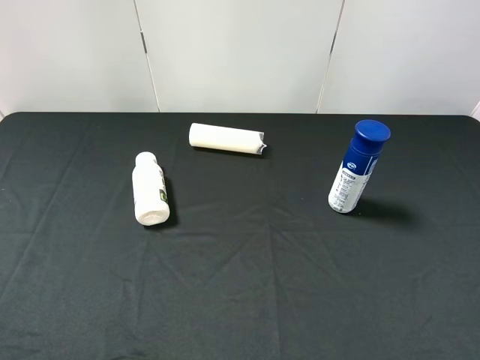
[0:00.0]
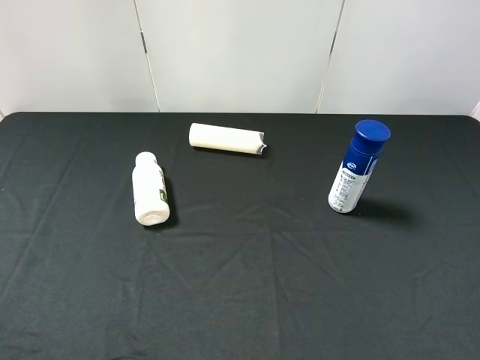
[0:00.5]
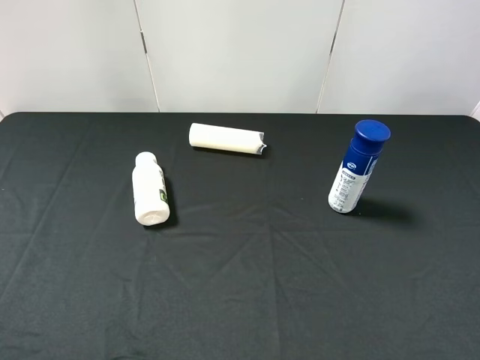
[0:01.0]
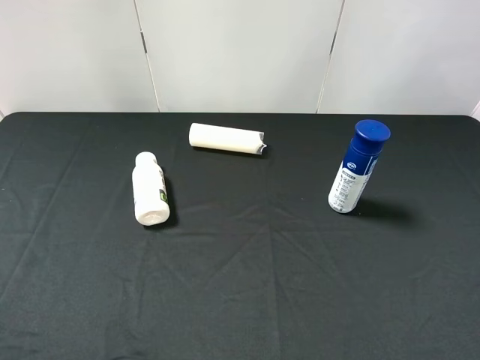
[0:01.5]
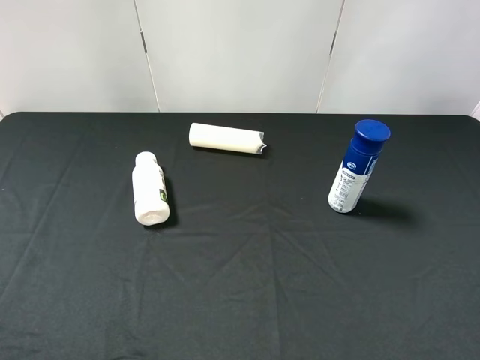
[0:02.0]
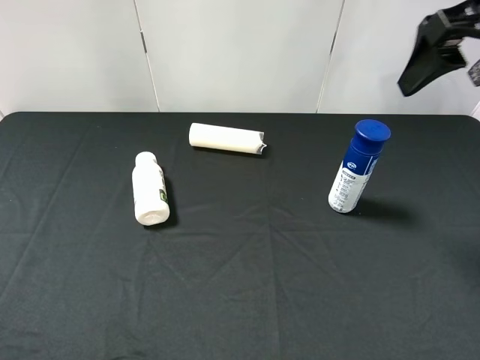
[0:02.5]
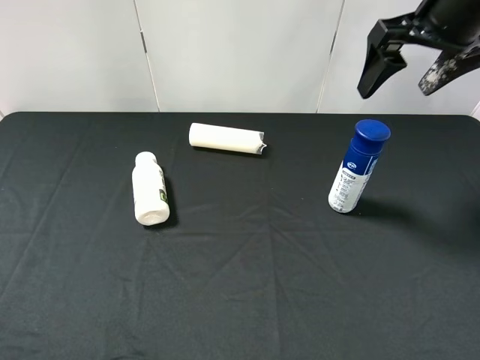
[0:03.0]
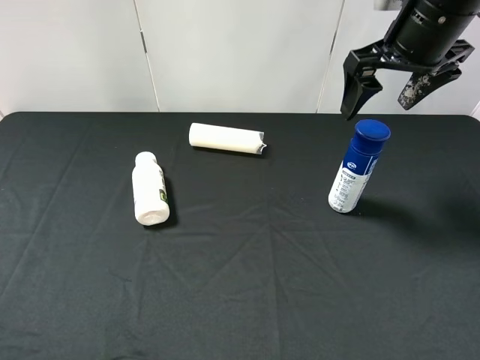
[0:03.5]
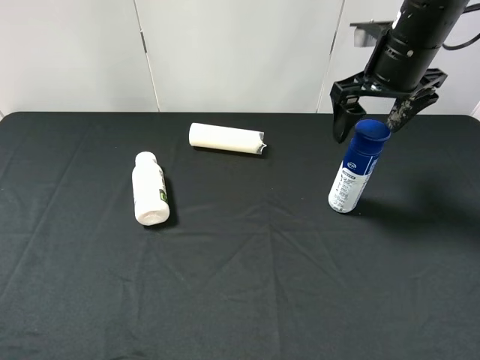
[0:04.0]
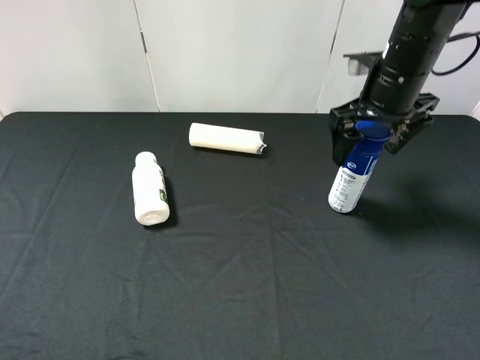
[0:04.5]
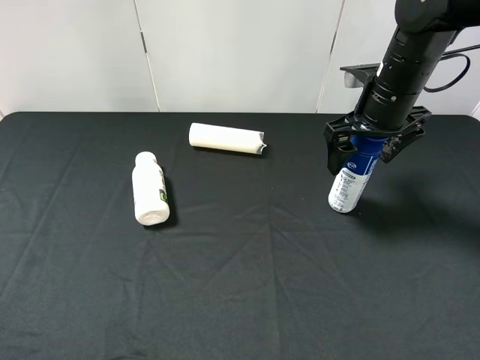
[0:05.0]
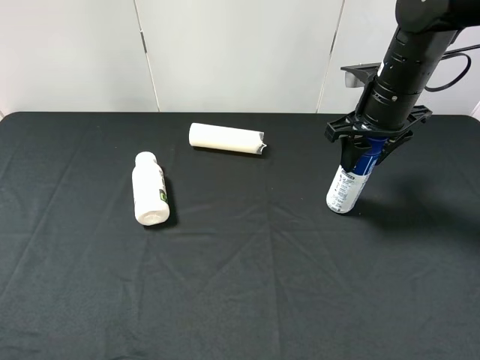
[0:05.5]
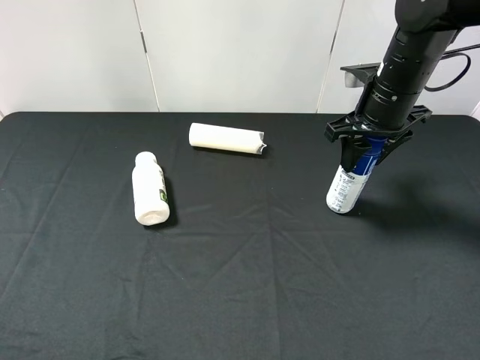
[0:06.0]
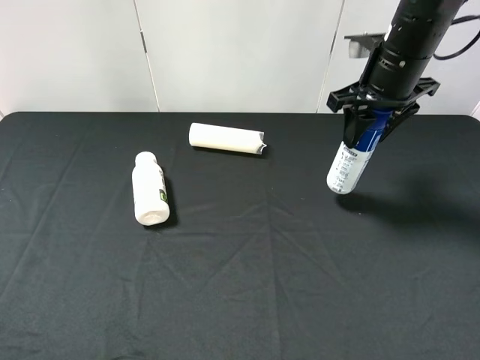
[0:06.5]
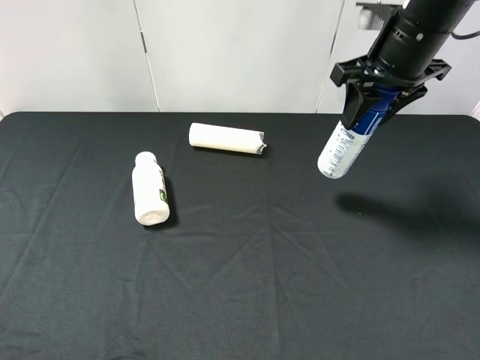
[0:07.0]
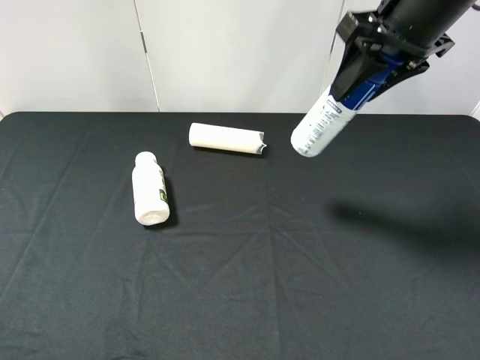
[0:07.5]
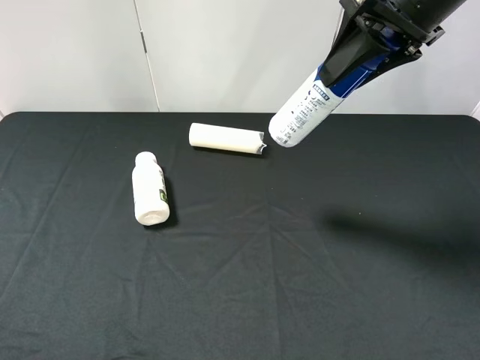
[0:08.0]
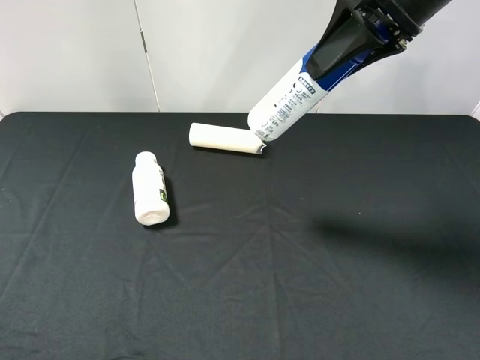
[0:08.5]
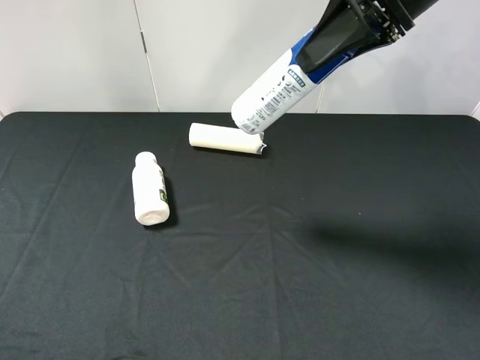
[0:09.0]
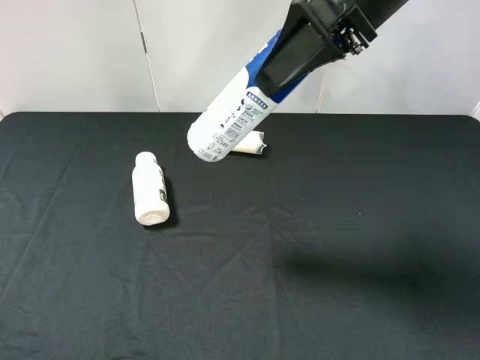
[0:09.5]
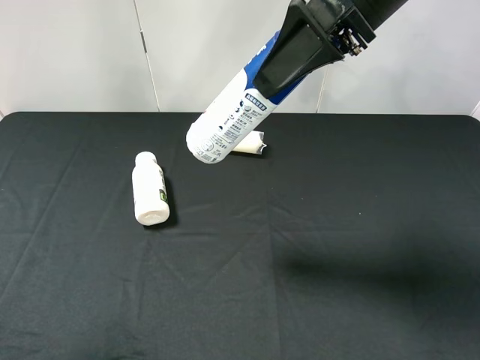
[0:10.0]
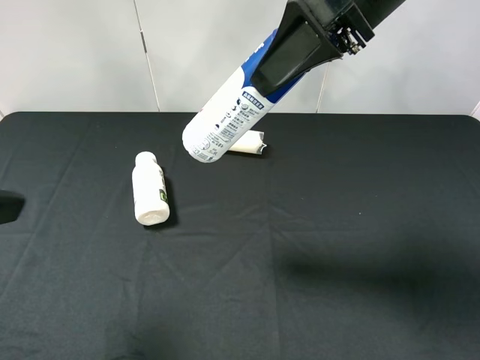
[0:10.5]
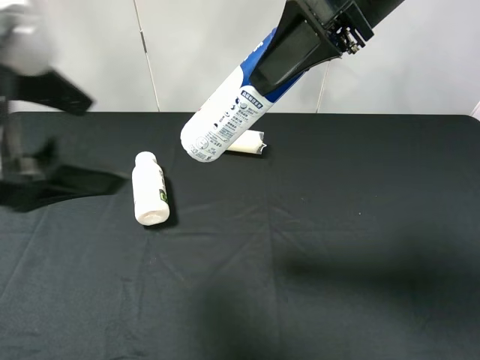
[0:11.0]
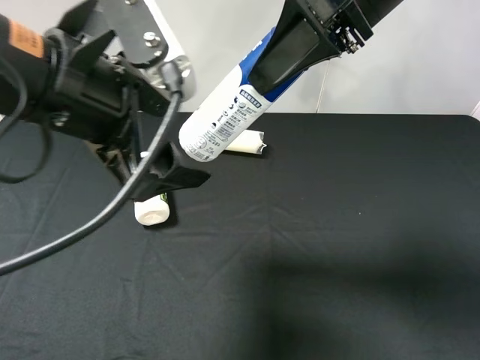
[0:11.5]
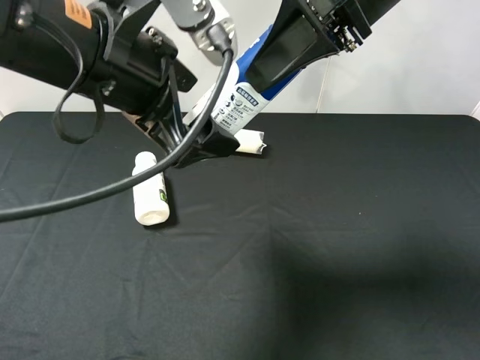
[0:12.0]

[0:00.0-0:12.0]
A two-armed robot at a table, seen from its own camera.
Task of the whole recording: use the right gripper to pick up the item and transfer it from the right gripper to the left gripper.
Step, 0:00.0 to 0:05.5: Use the right gripper to grab the yogurt on the right side of the table.
0:02.0 to 0:04.0: The right gripper travels forward, downward and to the left by approximately 25 cm.
0:04.0 to 0:06.0: The right gripper closes its fingers.
0:06.0 to 0:08.0: The right gripper shifts approximately 15 cm upward.
0:08.0 to 0:10.0: The left gripper is displaced forward by approximately 5 cm. Meanwhile the right gripper moves to the left, about 5 cm.
0:10.0 to 0:12.0: The left gripper moves to the right and forward, roughly 25 cm.

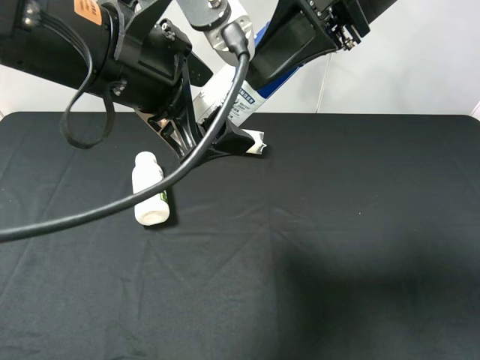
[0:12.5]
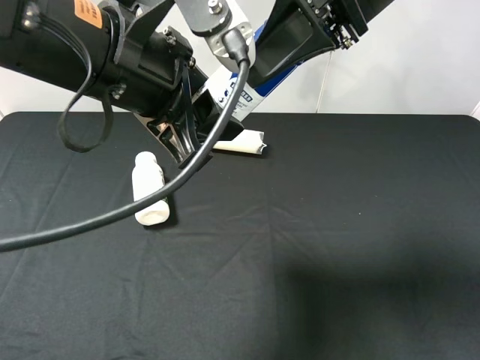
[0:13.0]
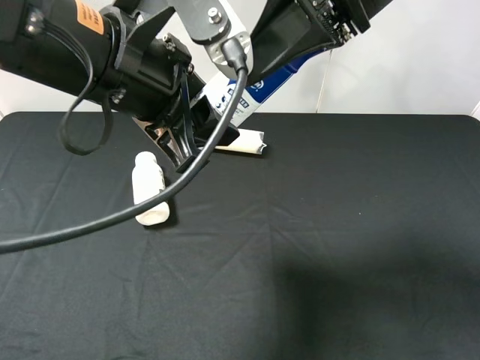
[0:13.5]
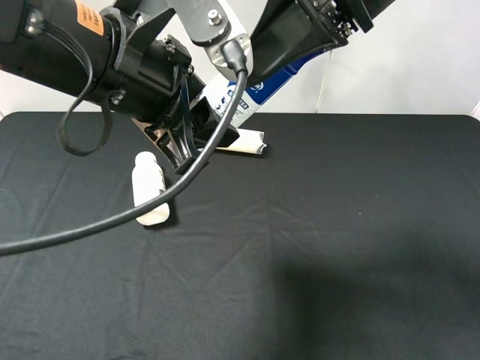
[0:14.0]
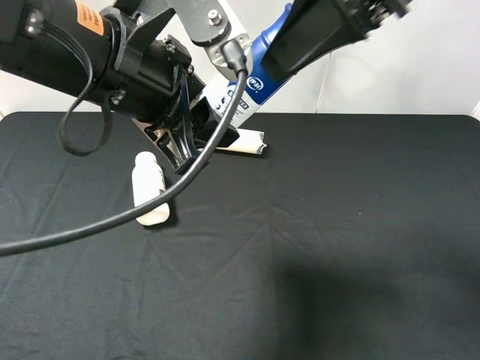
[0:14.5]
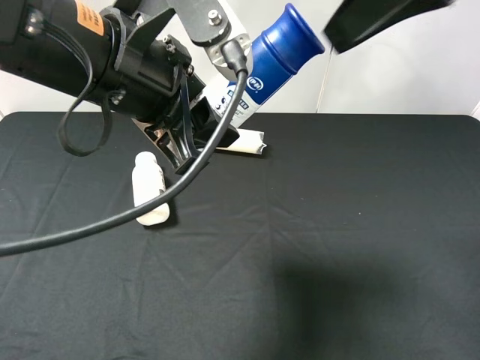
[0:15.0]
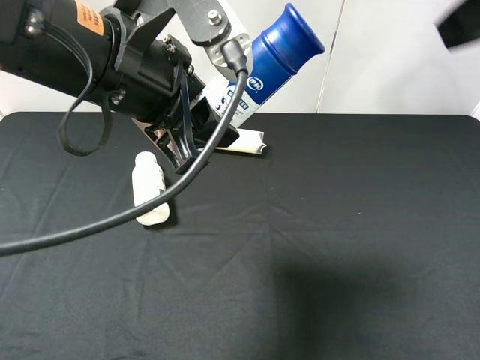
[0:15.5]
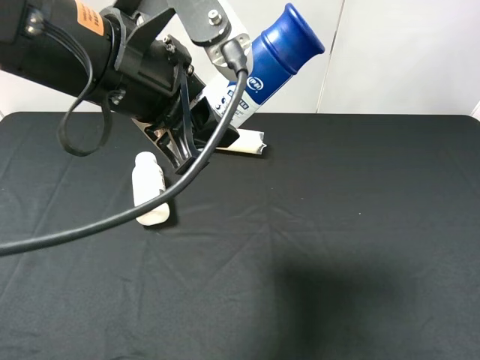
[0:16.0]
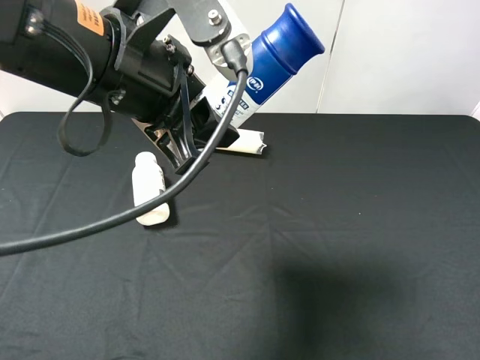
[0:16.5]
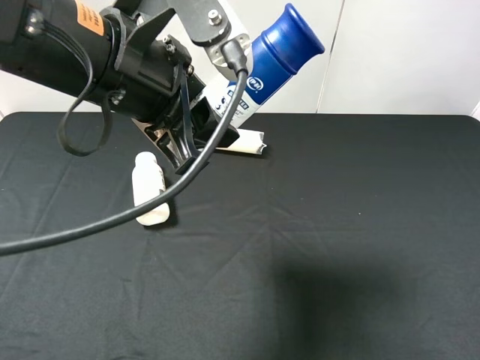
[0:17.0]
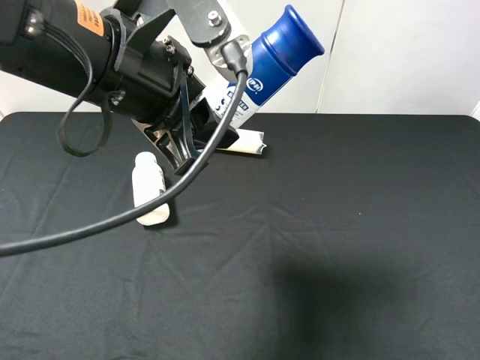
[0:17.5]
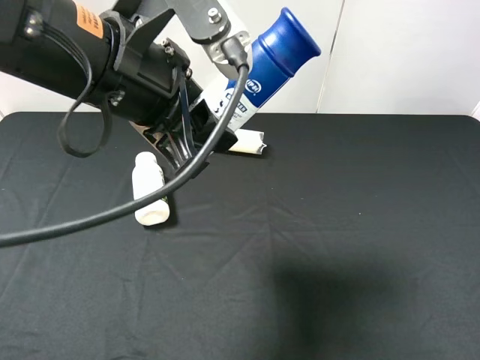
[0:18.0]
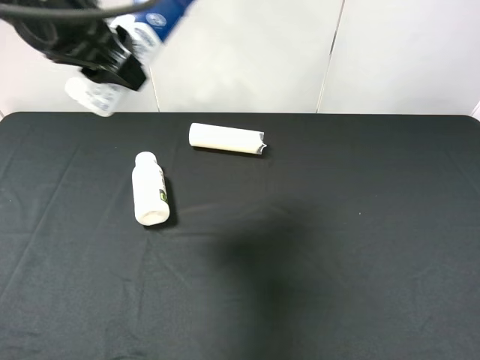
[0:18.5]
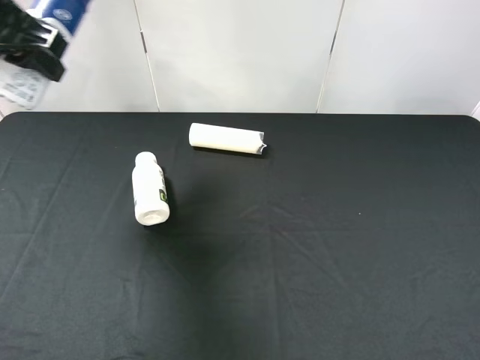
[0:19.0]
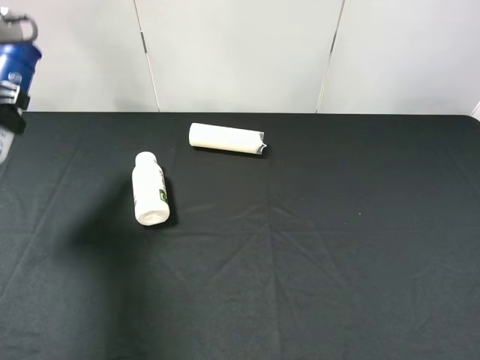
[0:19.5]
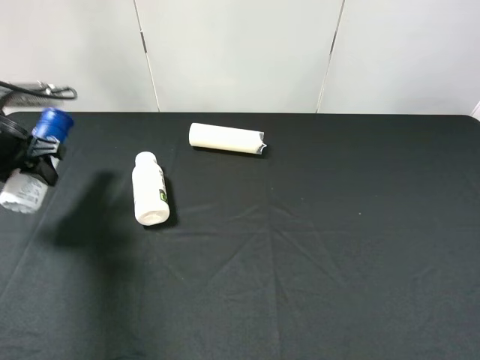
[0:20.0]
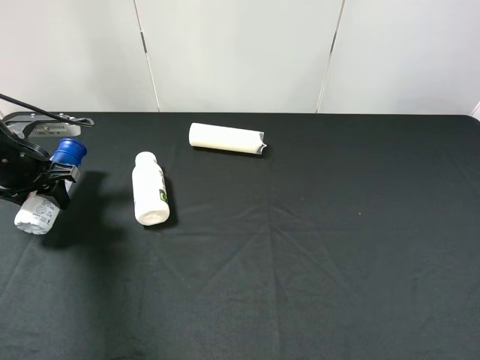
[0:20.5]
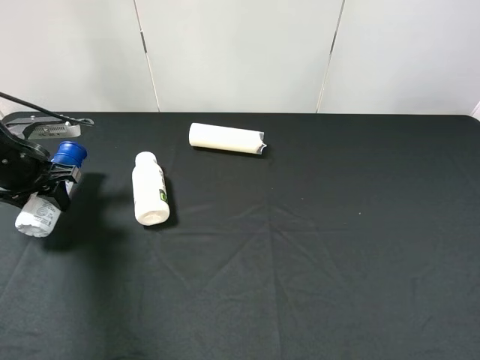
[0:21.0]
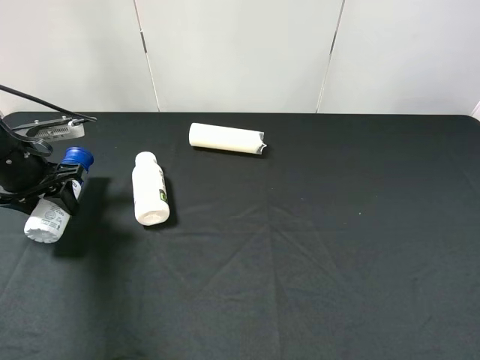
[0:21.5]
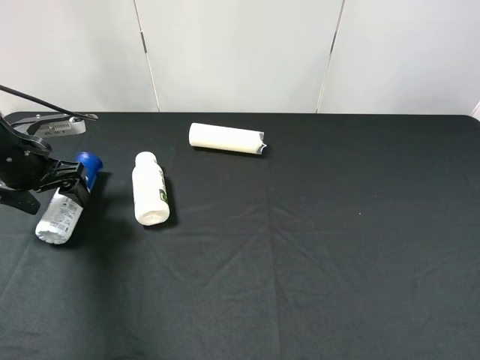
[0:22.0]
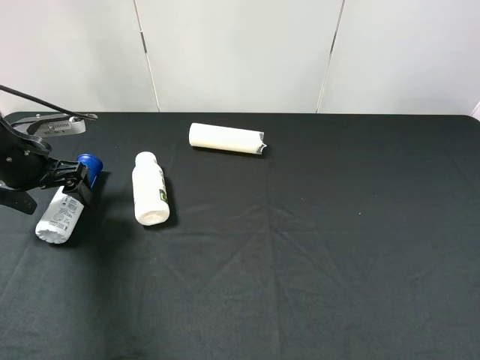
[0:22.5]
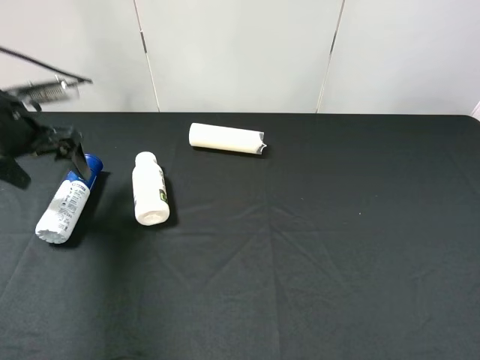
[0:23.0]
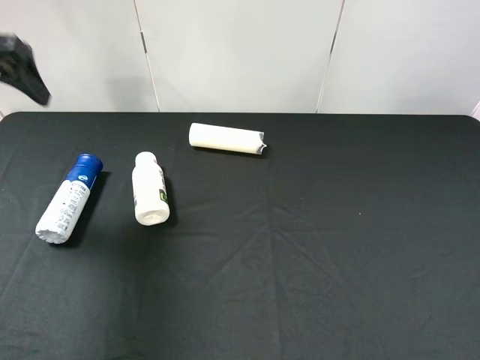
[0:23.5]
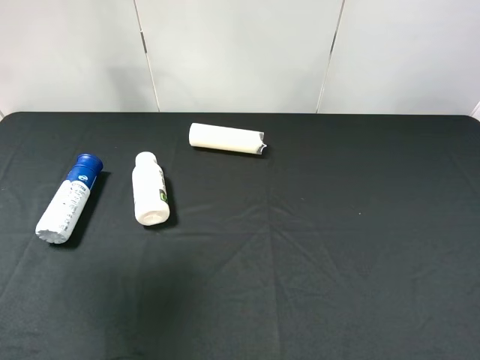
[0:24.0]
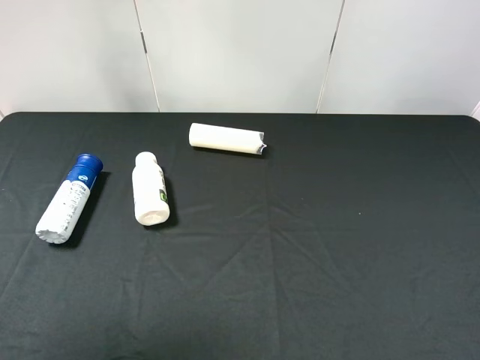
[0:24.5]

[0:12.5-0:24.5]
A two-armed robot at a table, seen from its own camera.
Task of the whole recording: use the right gripper to pick up the item and transfer it from the right gripper to the left gripper.
Step, 0:15.0 to 0:22.5: The left gripper places yogurt on the left side of the table.
0:12.5 to 0:14.5: The left gripper closes up; the right gripper opens.
0:14.5 to 0:16.5: The right gripper travels backward, to the right and downward by some 30 cm.
0:16.5 to 0:18.5: The left gripper is displaced to the left by some 5 cm.
0:18.5 to 0:20.5: The left gripper moves downward and to the left, about 25 cm.
0:20.5 to 0:22.5: The left gripper opens.
0:22.5 to 0:24.5: The left gripper moves upward and backward, about 35 cm.

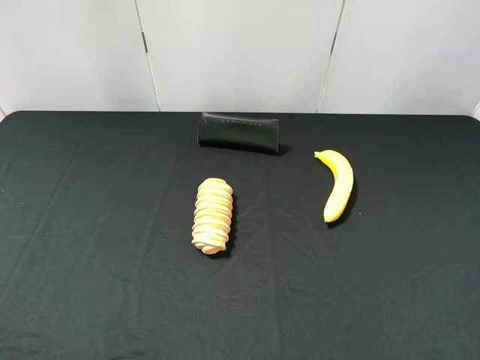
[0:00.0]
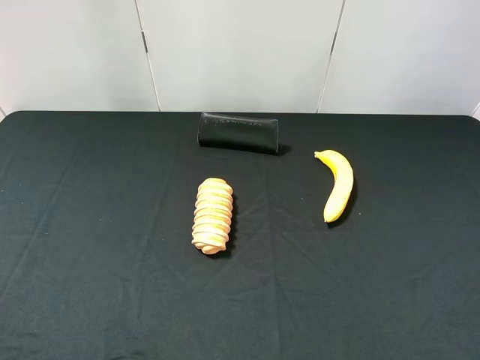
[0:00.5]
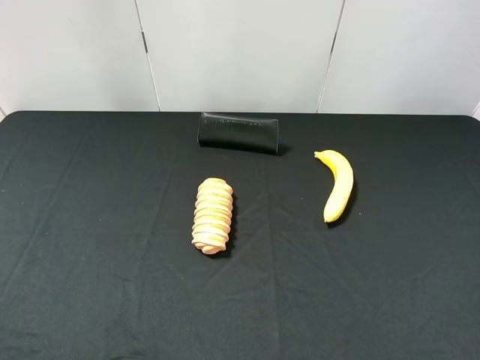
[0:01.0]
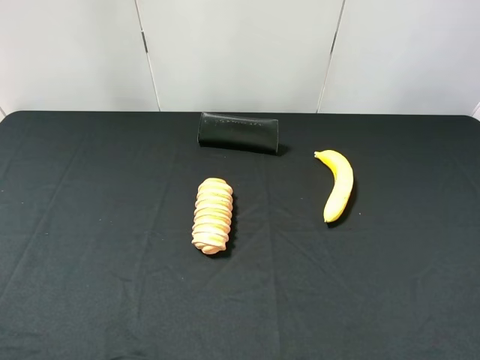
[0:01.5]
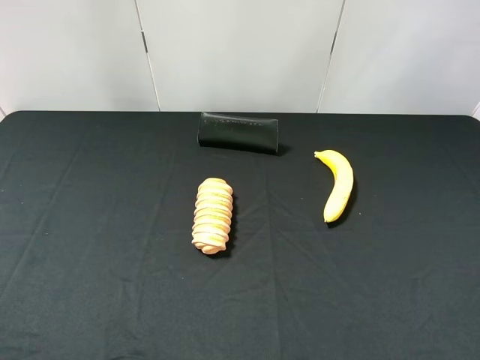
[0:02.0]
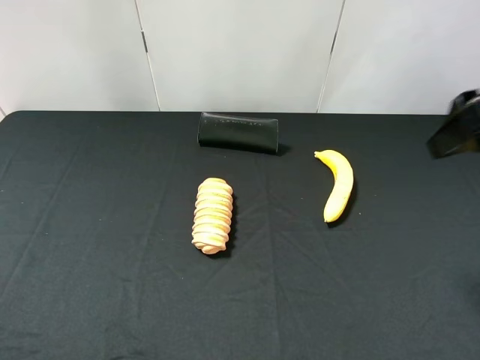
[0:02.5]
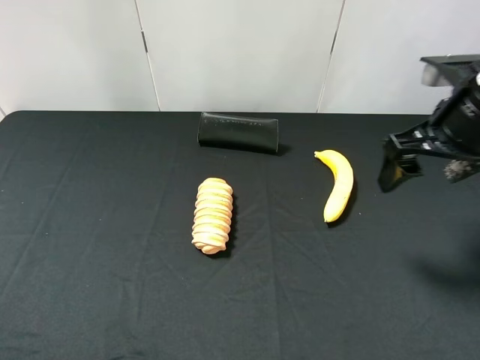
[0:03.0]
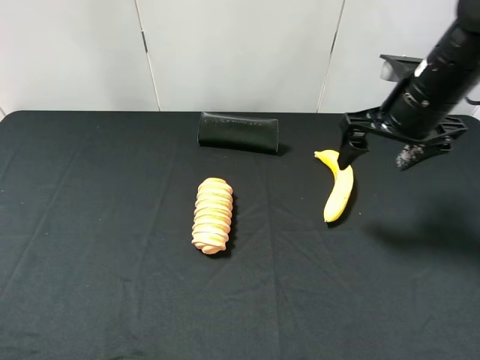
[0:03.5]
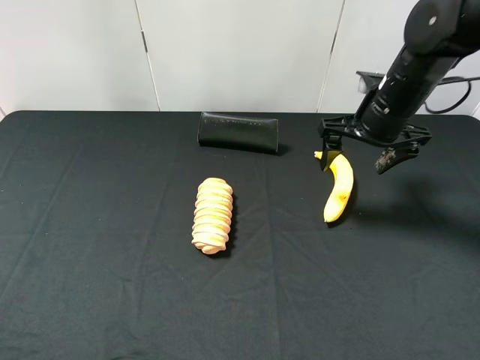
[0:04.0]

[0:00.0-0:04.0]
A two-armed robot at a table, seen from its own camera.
Task of the whole recording: use the right gripper to pick up the item and transfer it from the right gripper to the left gripper.
0:02.0 to 0:04.0: The right gripper heads forward, downward and to the left, covering approximately 30 cm.
